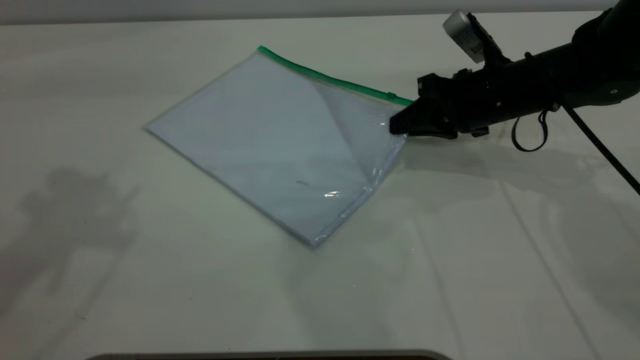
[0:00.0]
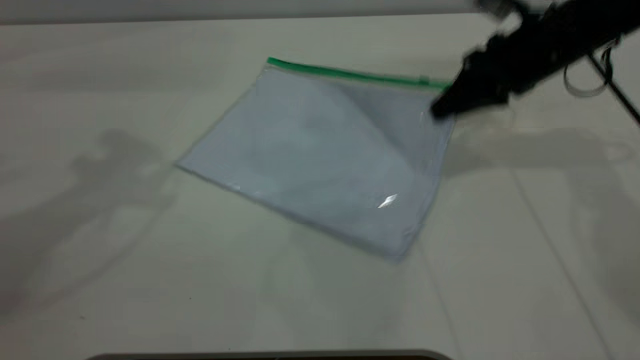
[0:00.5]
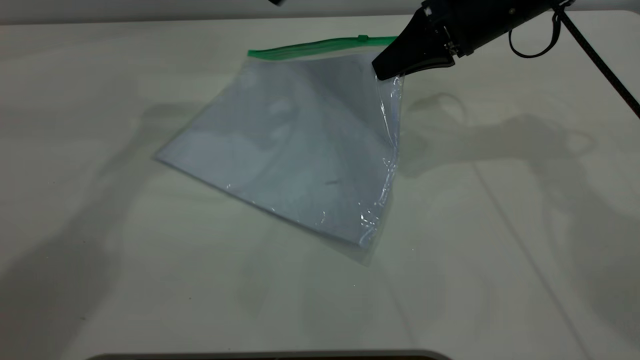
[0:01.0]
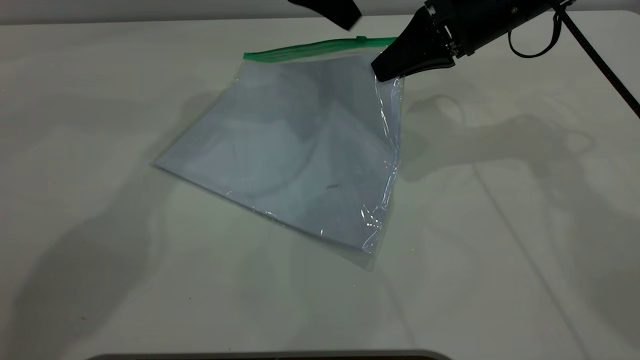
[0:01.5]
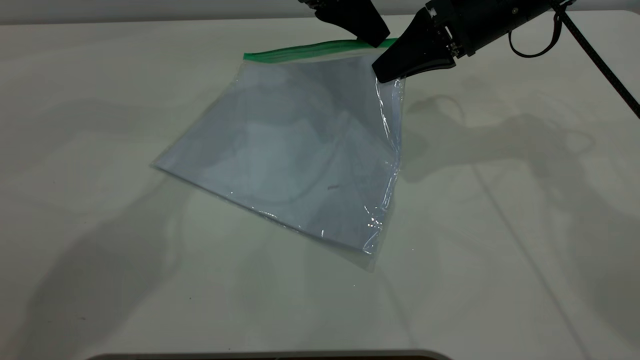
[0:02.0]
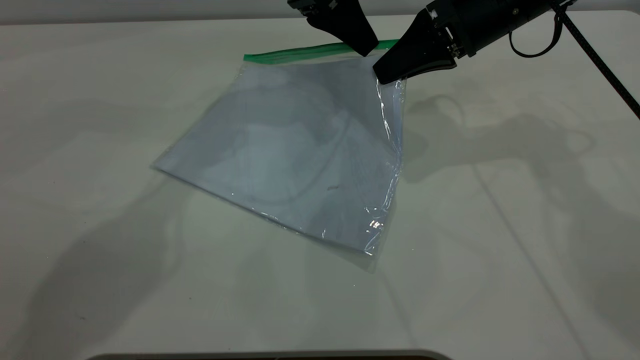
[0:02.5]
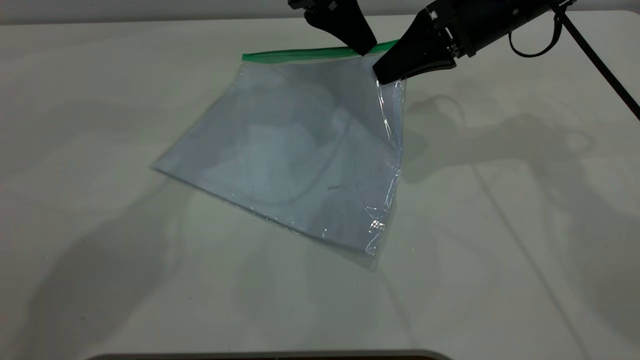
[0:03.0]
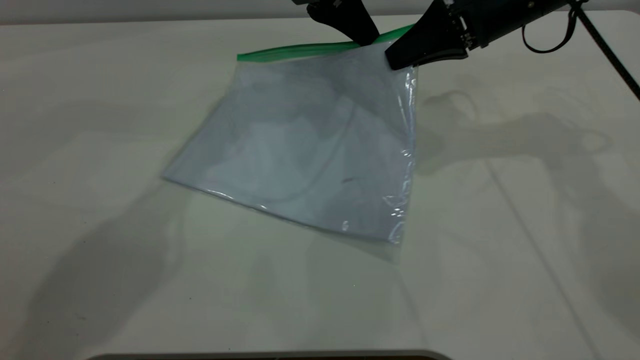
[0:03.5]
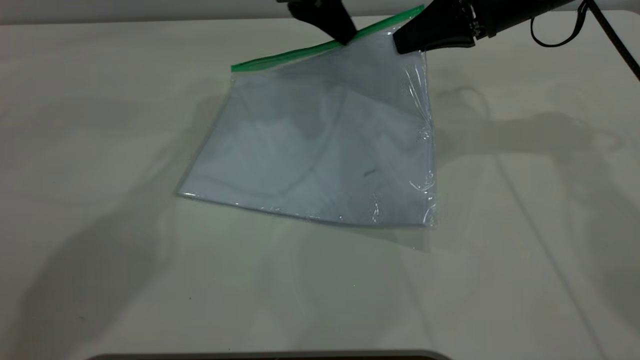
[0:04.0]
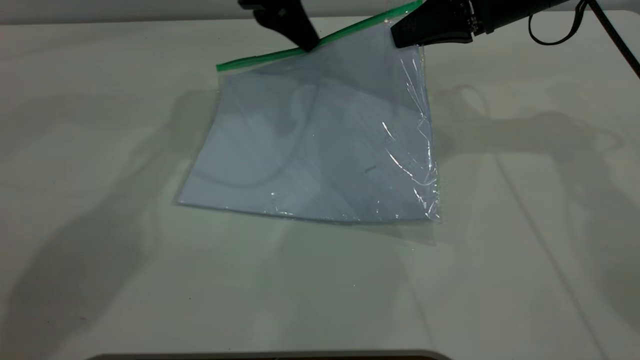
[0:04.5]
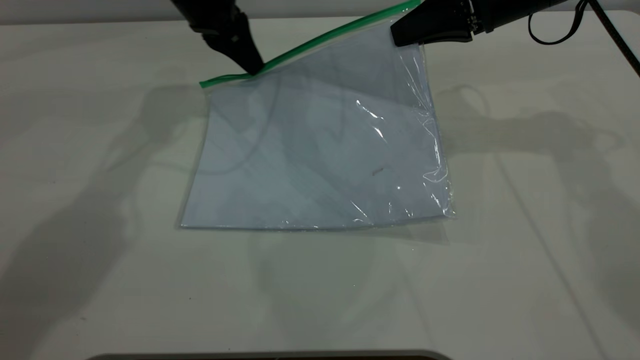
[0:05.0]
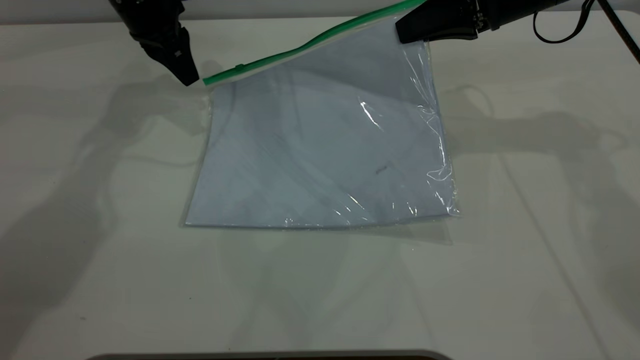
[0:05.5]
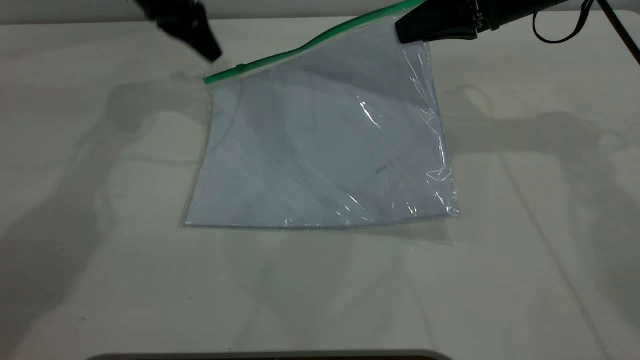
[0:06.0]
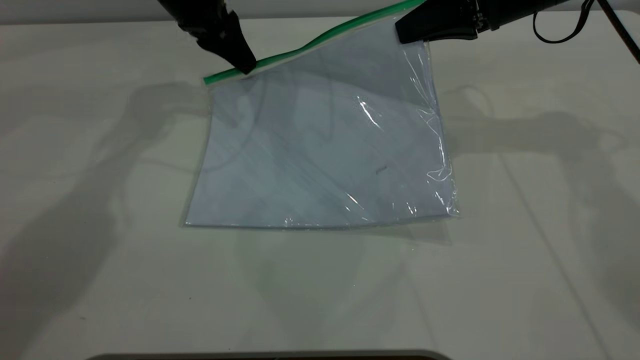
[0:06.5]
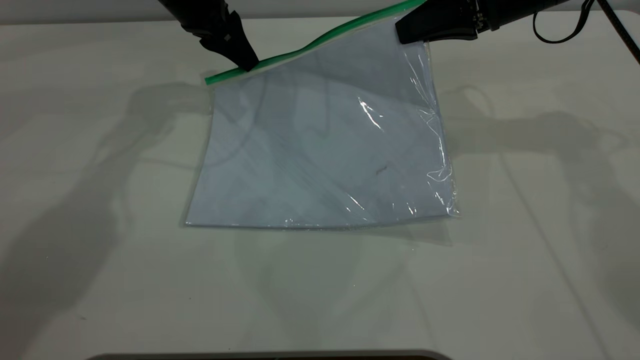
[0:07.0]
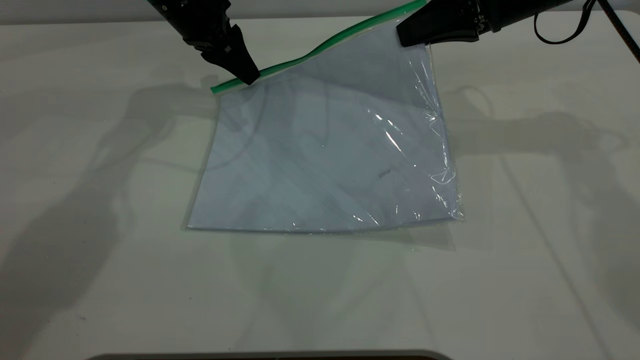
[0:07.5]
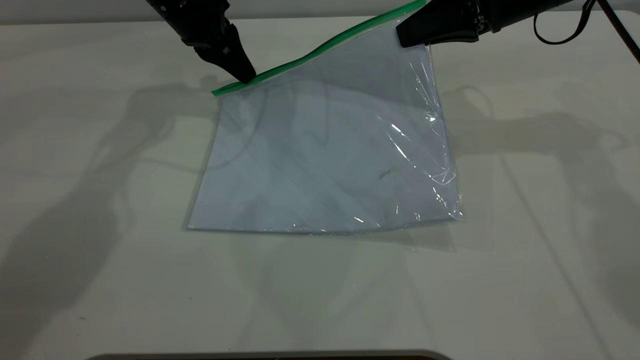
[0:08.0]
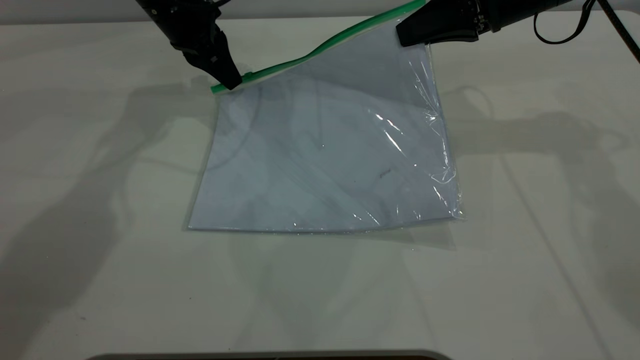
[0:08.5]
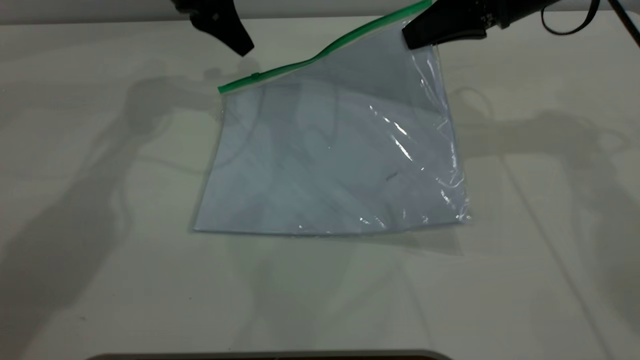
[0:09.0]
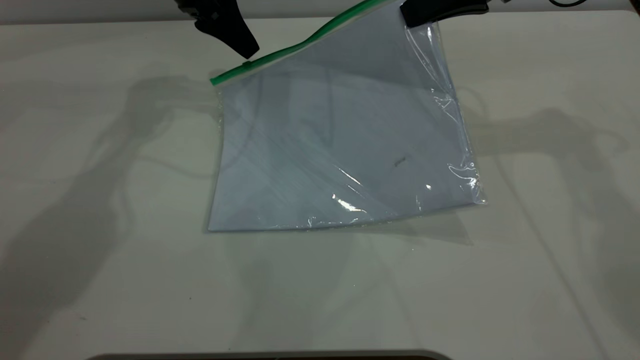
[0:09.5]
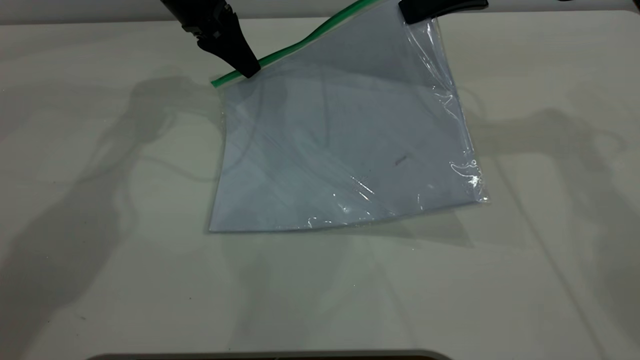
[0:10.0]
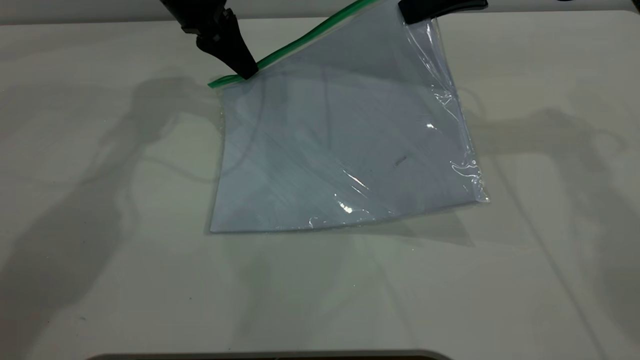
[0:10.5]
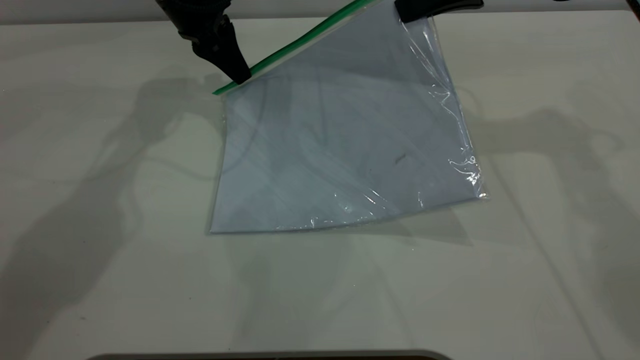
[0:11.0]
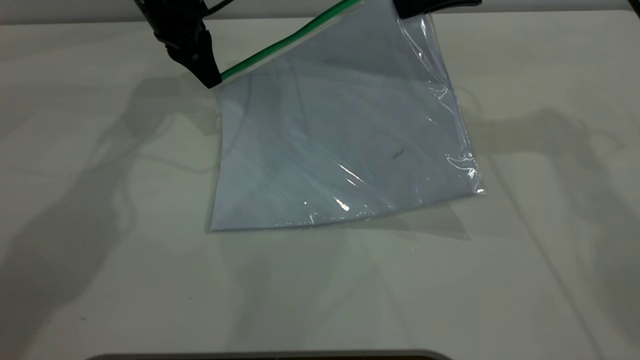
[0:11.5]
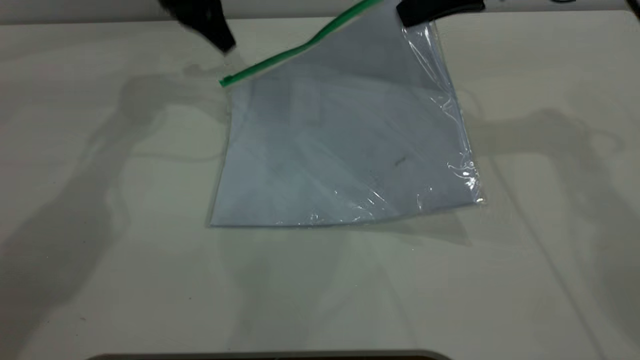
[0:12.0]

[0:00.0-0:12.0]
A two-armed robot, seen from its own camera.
Step, 0:00.5 to 0:11.5: Pulling up the zipper on the transparent plastic bag with the left gripper to close it.
0:00.0 to 0:02.0: The right gripper is displaced upward by roughly 10 cm; the left gripper shifts some 35 cm to the right, forward and downward.
0:02.0 to 0:04.0: The left gripper closes its fingers.
0:04.0 to 0:06.0: The left gripper travels to the left by approximately 15 cm.
0:06.0 to 0:08.0: The left gripper opens, then closes once more.
0:08.0 to 0:10.0: The left gripper opens.
0:10.0 to 0:12.0: The left gripper changes place by roughly 5 cm, and closes and opens again.

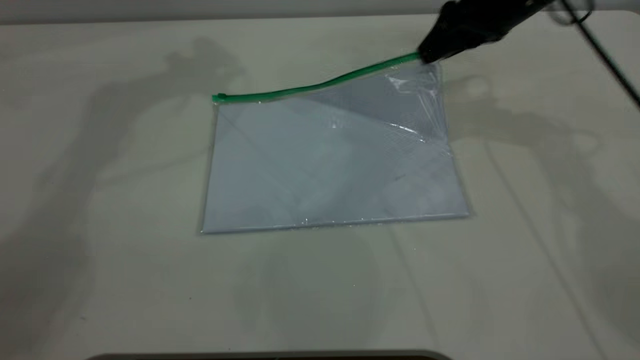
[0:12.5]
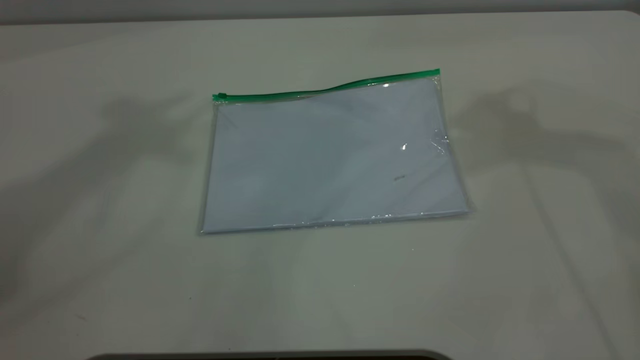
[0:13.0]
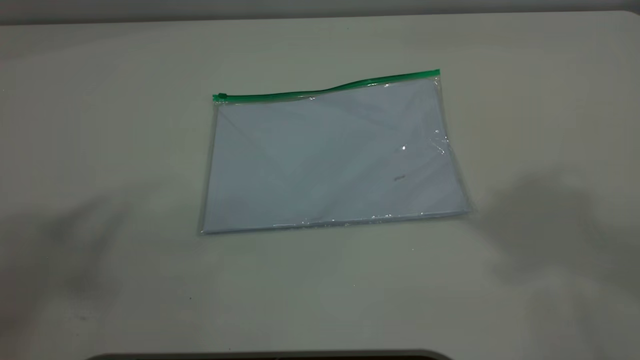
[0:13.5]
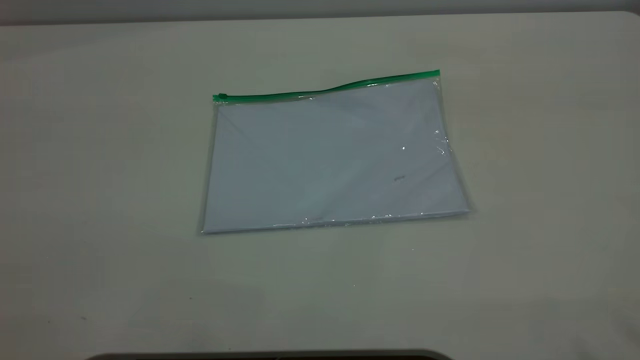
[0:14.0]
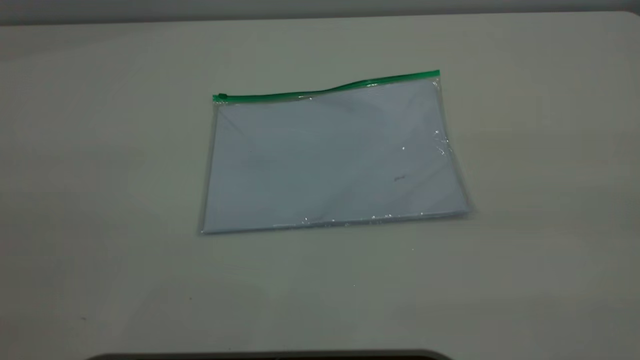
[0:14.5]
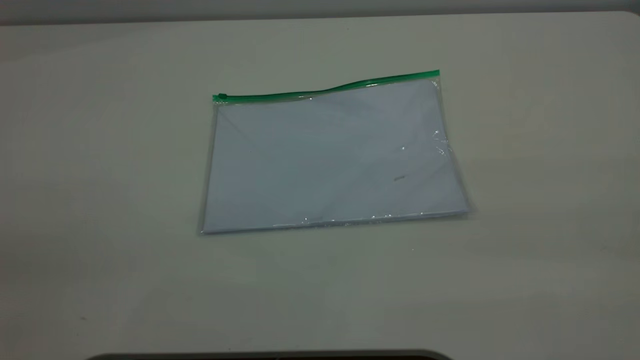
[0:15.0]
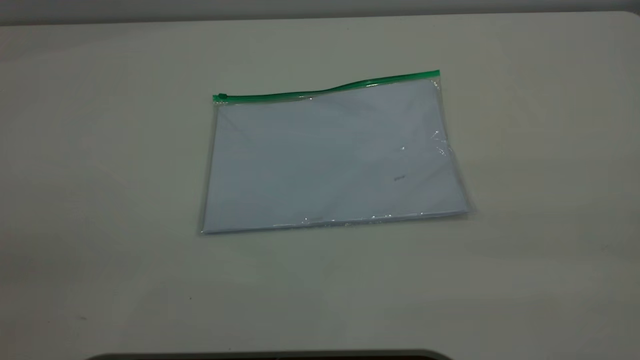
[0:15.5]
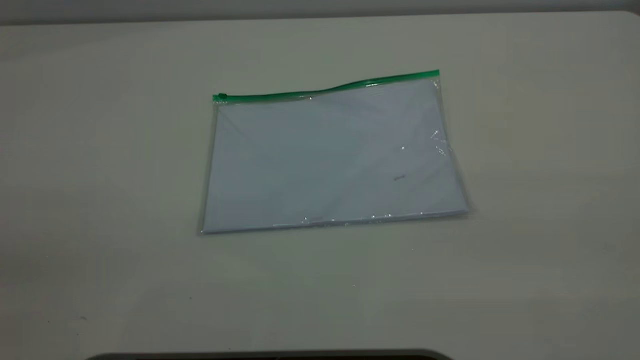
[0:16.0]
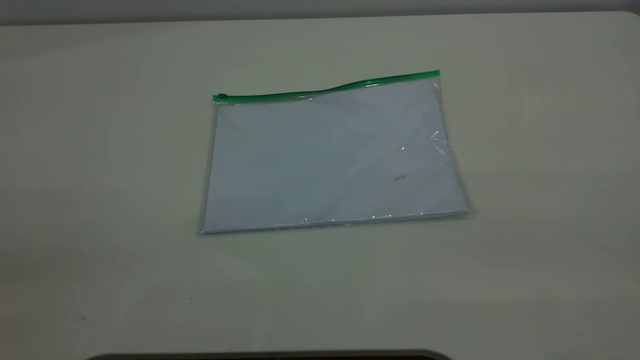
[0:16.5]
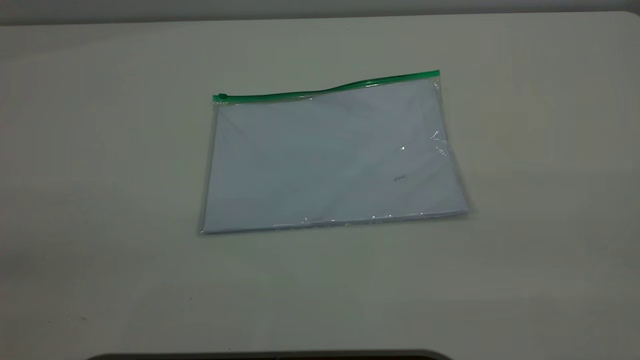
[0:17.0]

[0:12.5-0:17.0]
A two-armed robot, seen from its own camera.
0:12.5 to 0:14.5: The right gripper travels backward and upward by about 50 cm, while the left gripper goes about 50 cm backward.

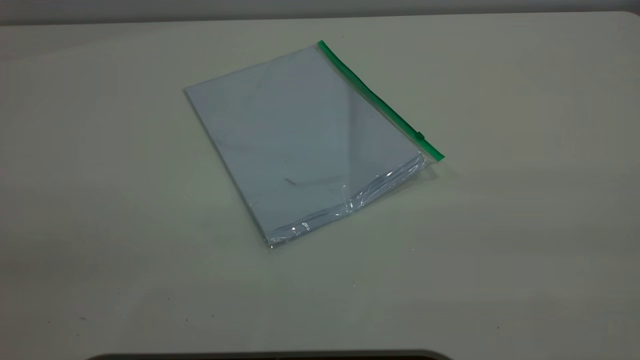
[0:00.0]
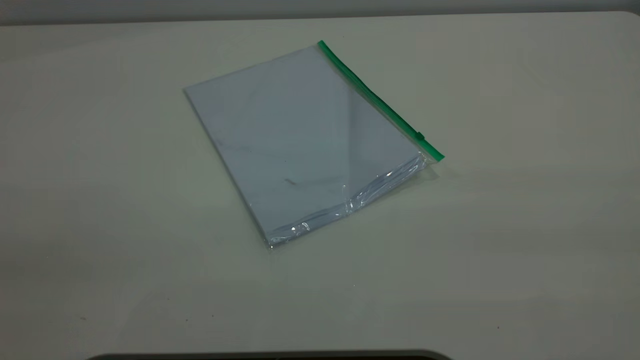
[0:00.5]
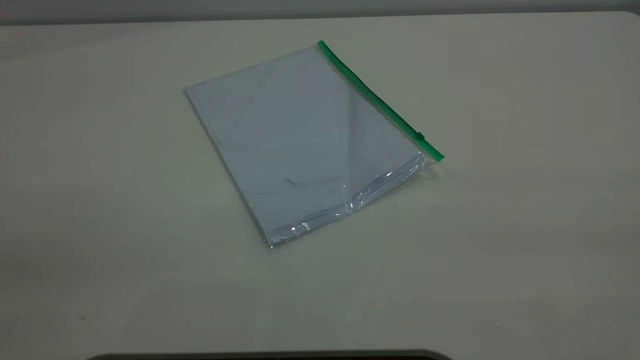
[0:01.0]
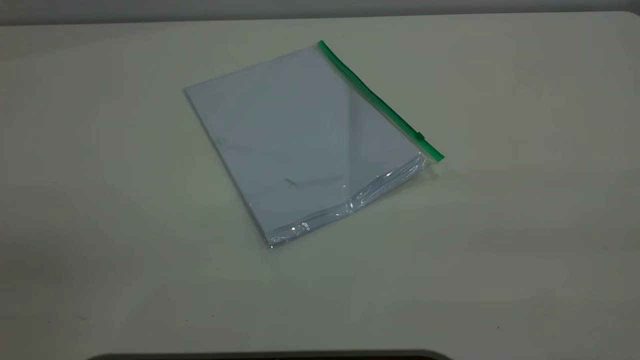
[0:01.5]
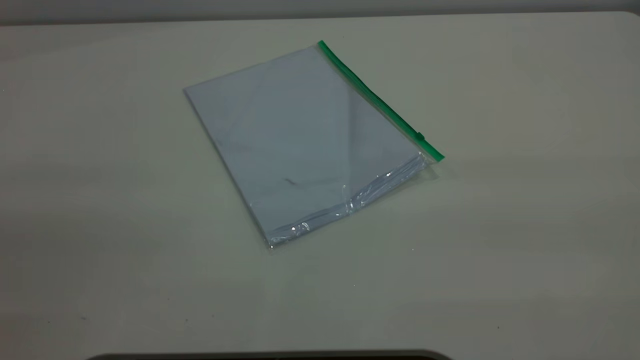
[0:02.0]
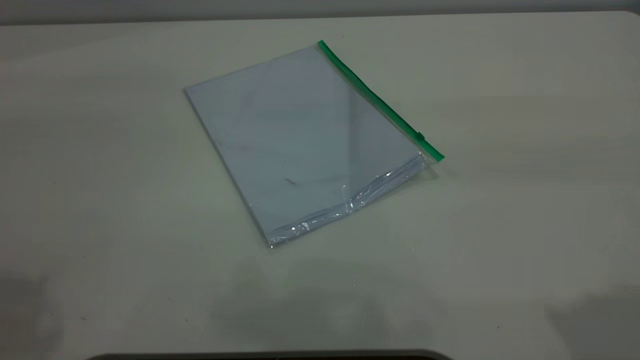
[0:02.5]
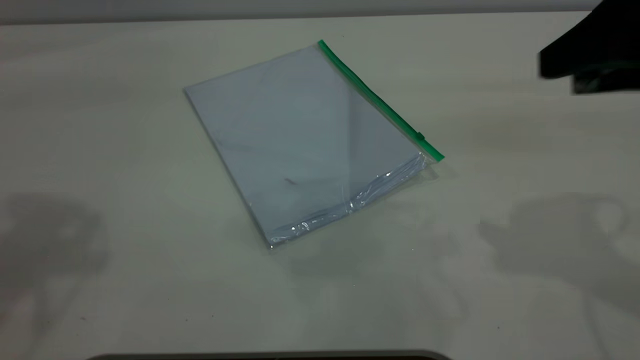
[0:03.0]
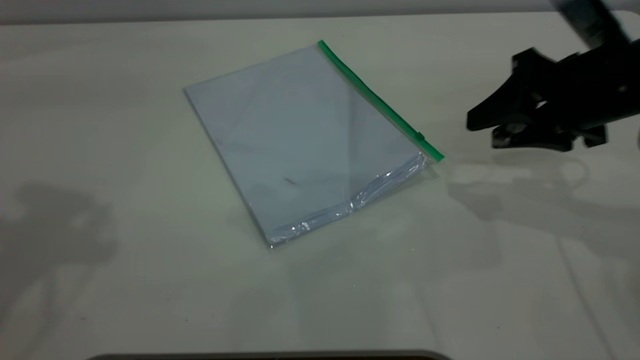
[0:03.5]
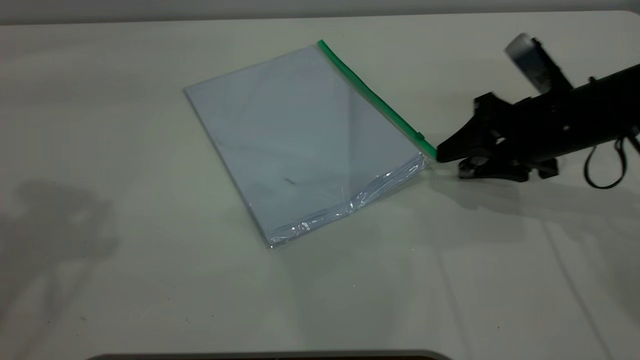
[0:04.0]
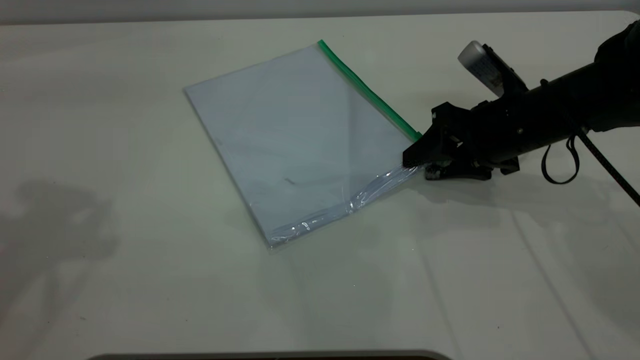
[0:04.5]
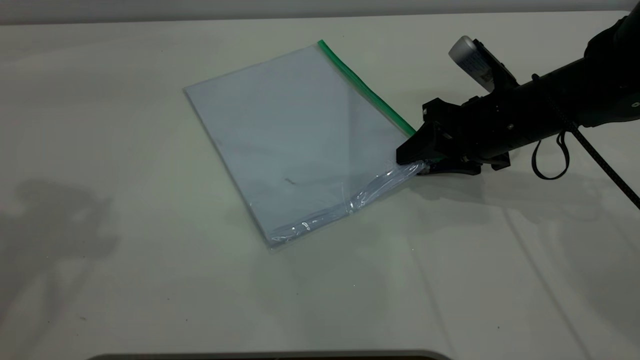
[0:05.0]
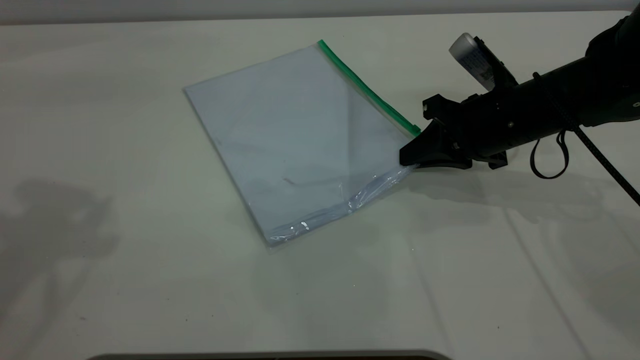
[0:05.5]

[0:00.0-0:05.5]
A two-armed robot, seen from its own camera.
0:02.0 to 0:03.5: The right gripper heads forward and downward, covering some 40 cm.
0:03.5 to 0:05.5: The right gripper goes approximately 10 cm downward and to the left, and closes up.
